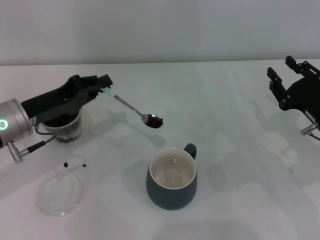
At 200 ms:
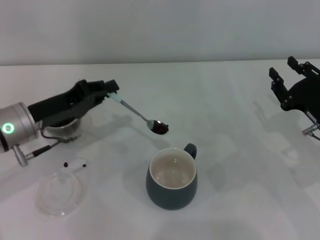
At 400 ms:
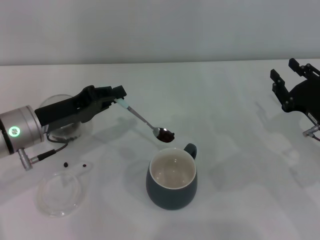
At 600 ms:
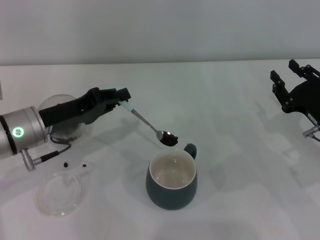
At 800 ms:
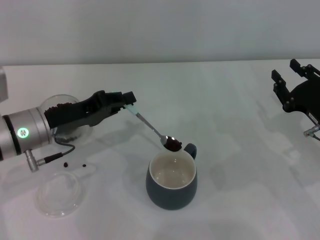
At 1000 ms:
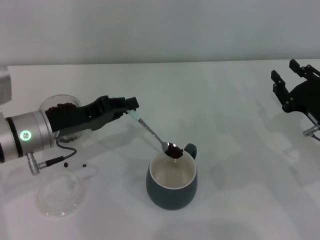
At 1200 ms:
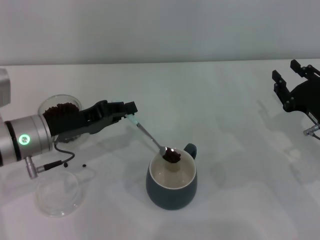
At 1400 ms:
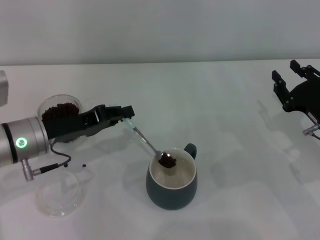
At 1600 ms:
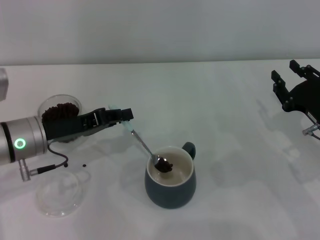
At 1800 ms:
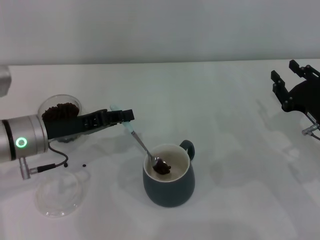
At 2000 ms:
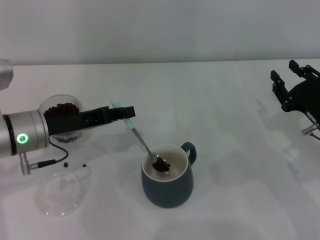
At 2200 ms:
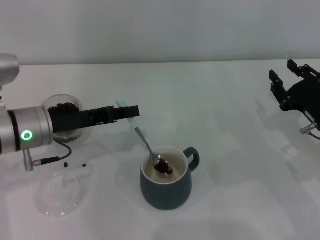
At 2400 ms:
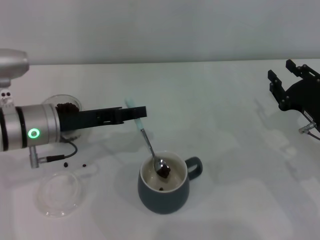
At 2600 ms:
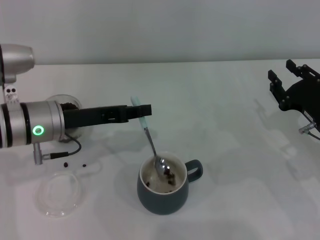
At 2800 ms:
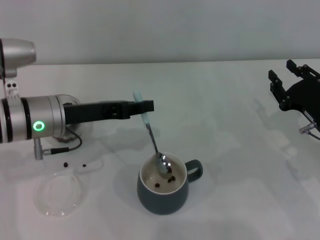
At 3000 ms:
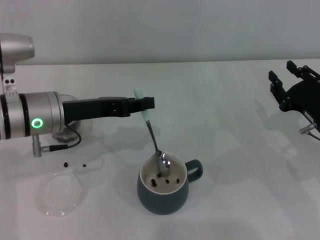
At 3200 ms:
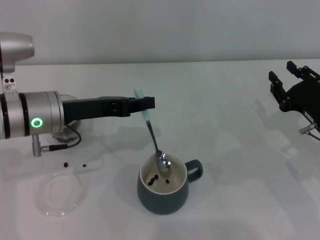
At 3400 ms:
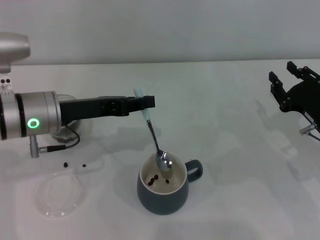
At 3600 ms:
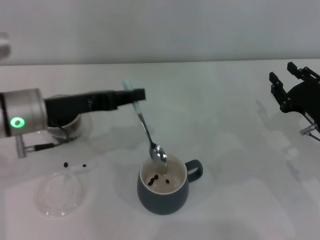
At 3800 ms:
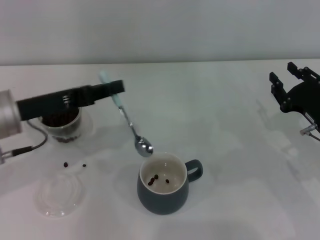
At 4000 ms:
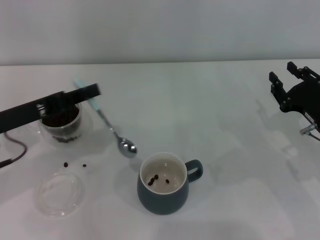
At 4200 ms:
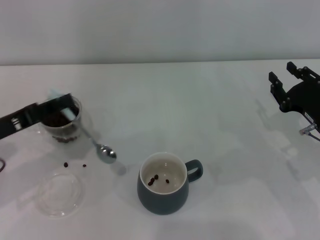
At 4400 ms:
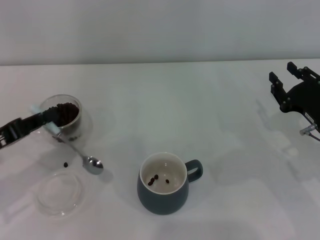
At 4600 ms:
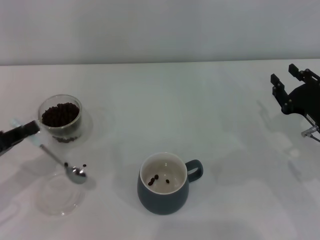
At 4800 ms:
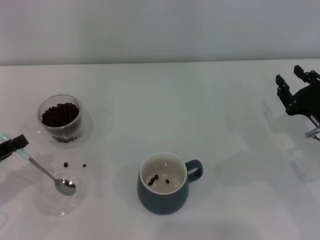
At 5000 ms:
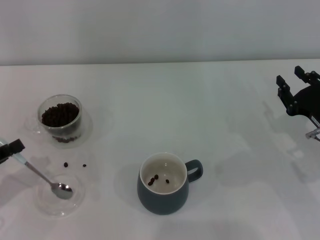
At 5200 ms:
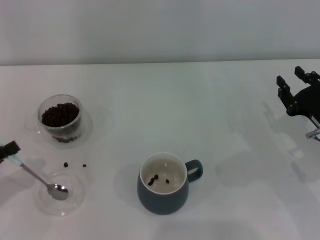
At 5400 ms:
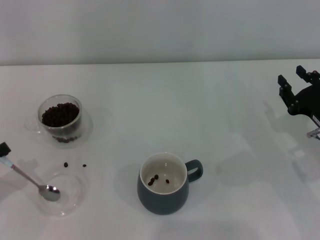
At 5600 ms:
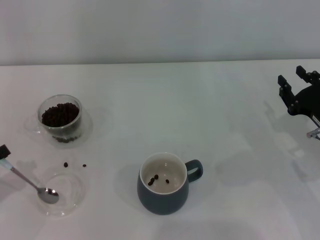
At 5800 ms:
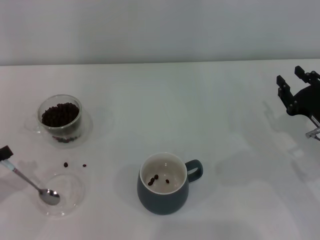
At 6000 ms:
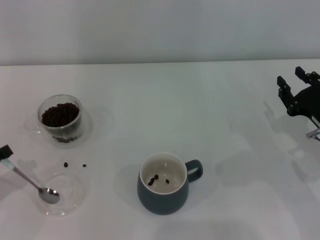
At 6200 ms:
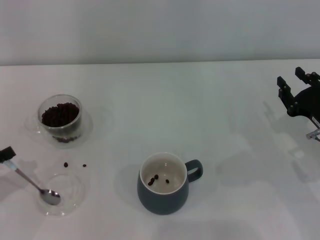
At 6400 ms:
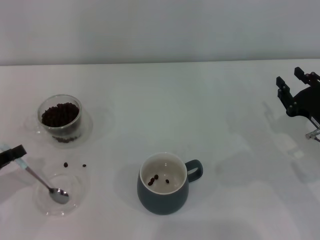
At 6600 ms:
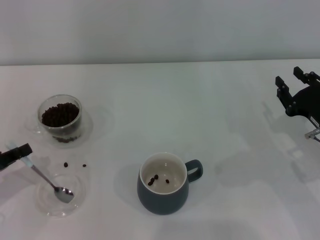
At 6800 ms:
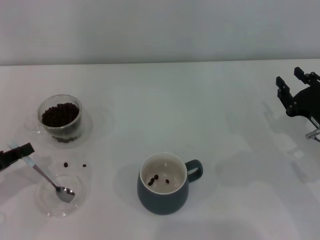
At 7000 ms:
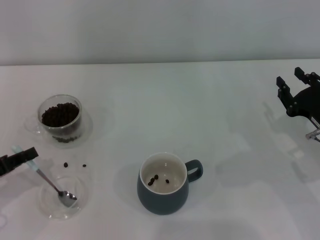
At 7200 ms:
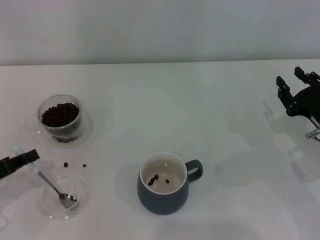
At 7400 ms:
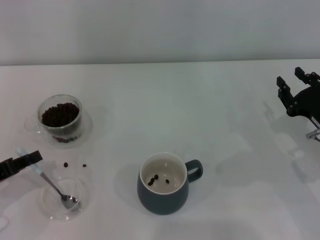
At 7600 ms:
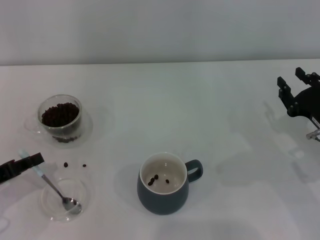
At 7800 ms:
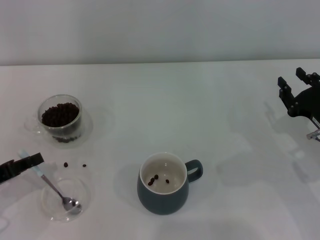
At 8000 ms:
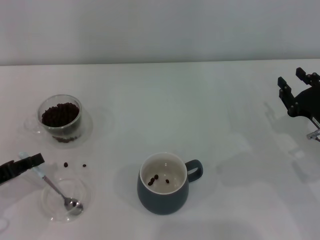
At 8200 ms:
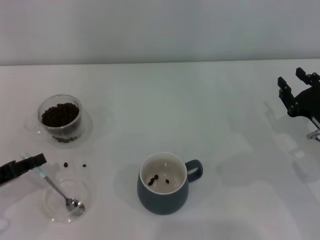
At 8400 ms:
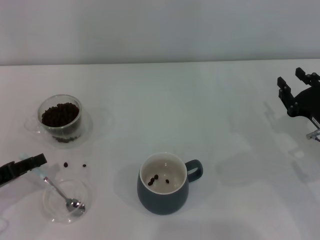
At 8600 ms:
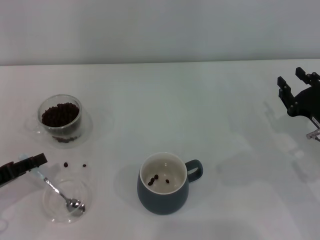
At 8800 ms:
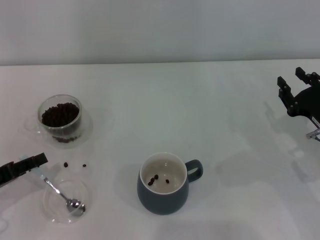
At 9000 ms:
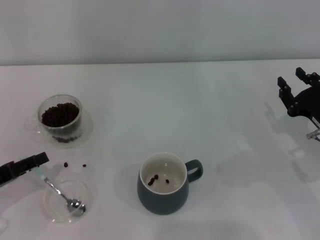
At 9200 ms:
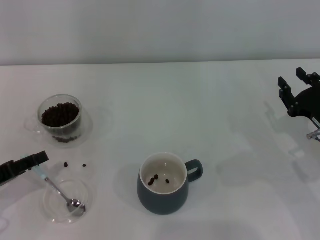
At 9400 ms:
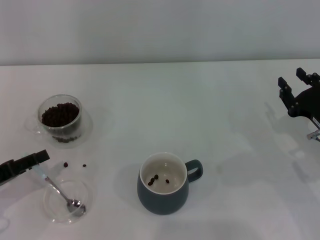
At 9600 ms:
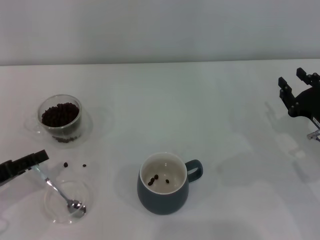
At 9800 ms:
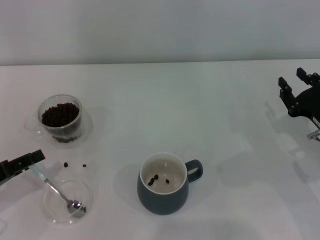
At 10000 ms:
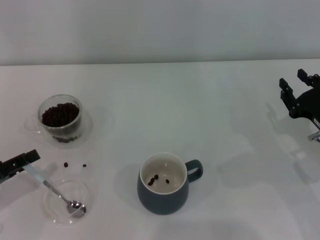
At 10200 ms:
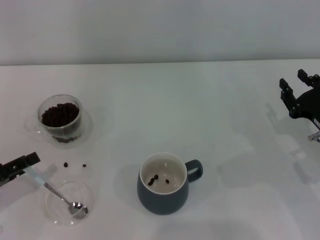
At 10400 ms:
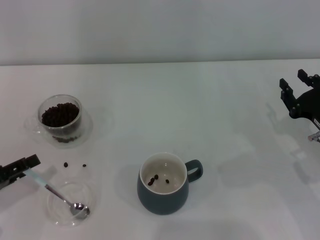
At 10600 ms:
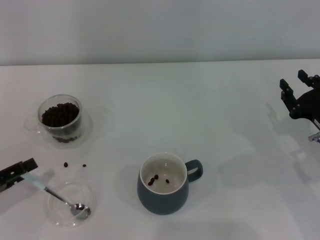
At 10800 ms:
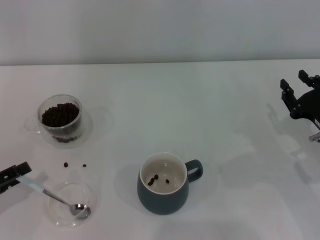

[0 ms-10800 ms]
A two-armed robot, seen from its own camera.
Task of the whole recording: Use a blue spoon to take out the coffee beans from the glass and pour them into the gray cup.
Step, 0 ms to 3400 ms: Scoop a spoonful of beans into the cup with the right gripper.
0 ms to 1600 ms: The grippers move only a little.
1600 ms to 3000 ms: The left gripper moves approximately 5 cm.
3000 ms to 4600 ms: The left gripper is displaced to the left and backward by about 15 cm.
4600 ms to 7800 ms: There are only small adjustments of the grippers.
7800 ms to 9200 ms: The left gripper opens.
9200 ms to 10800 ms: The grippers make only small movements.

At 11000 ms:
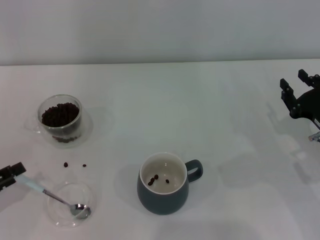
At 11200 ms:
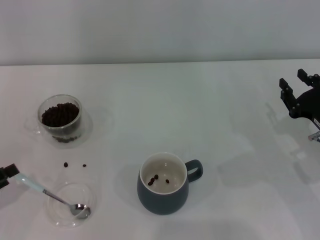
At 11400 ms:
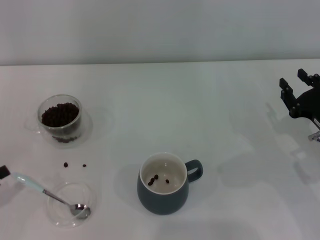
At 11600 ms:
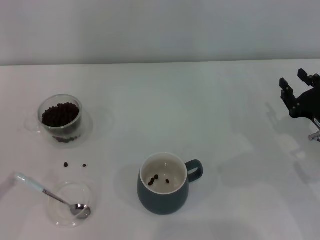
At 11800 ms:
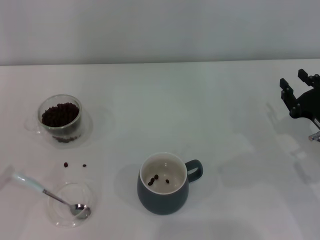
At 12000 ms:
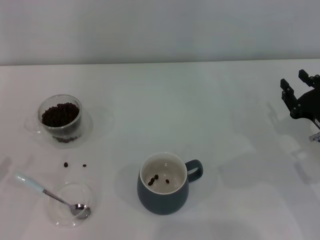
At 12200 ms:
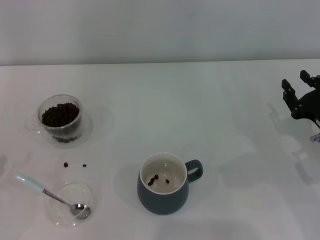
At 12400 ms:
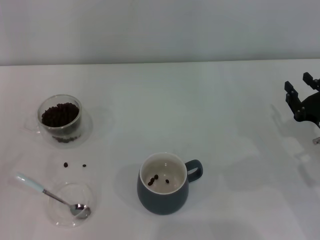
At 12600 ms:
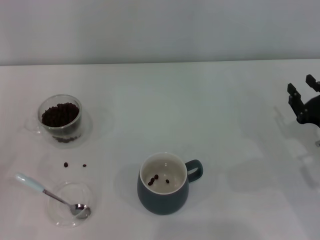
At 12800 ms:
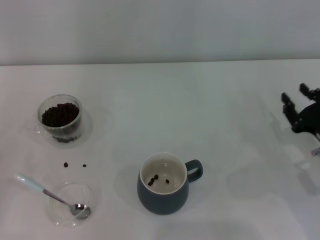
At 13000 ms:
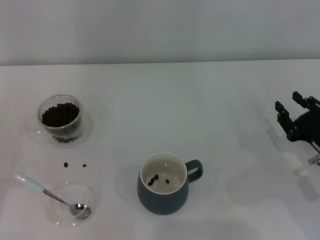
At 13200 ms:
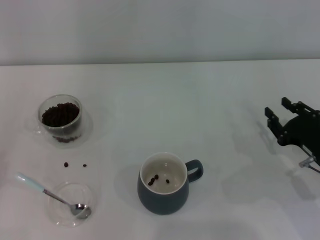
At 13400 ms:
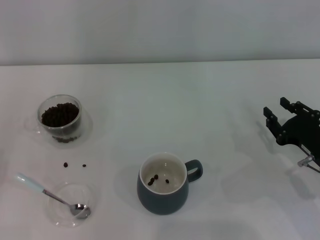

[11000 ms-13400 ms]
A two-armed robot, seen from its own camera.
Task of the whole recording: Use a blue spoon to take out the coffee beans from the glass and pour them into the gray cup.
11000 ms to 12200 ms: The left gripper shifts by about 5 cm.
